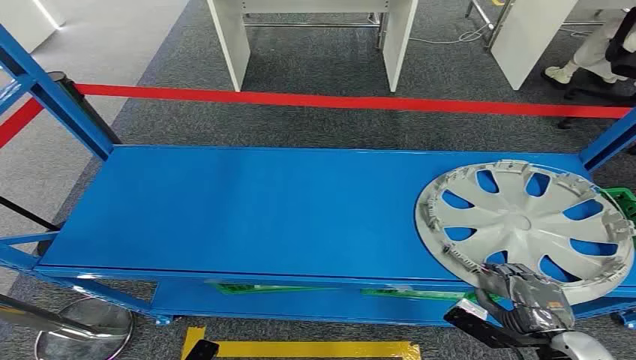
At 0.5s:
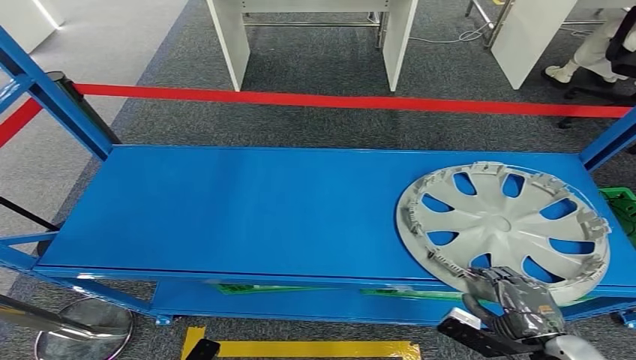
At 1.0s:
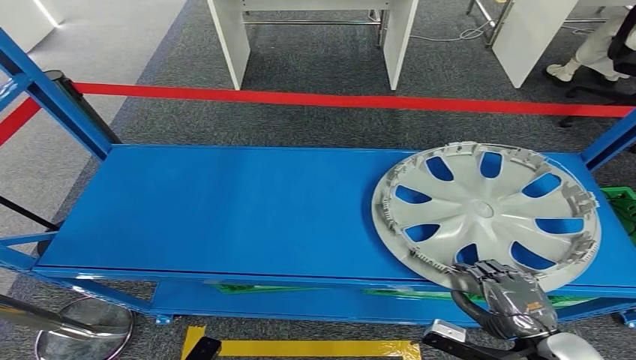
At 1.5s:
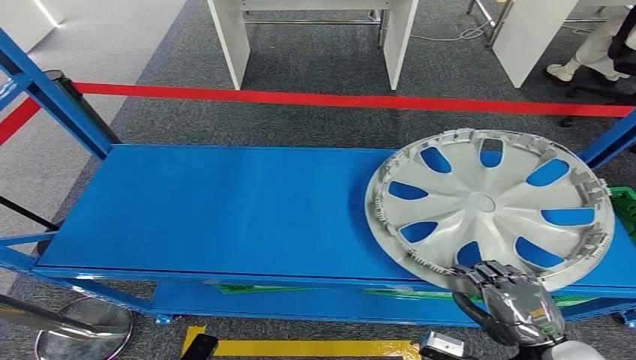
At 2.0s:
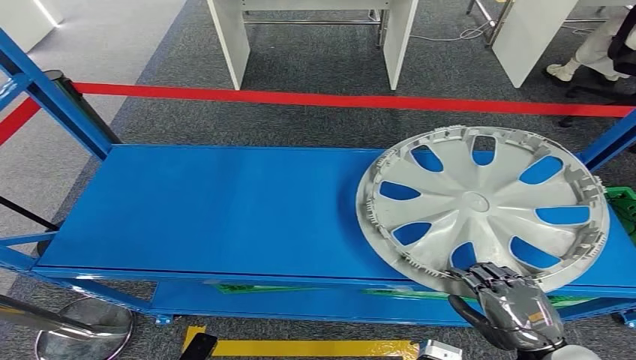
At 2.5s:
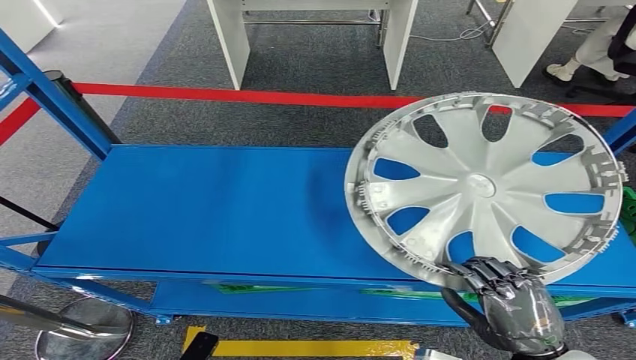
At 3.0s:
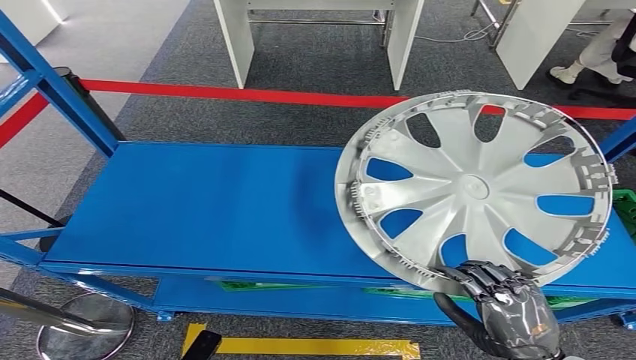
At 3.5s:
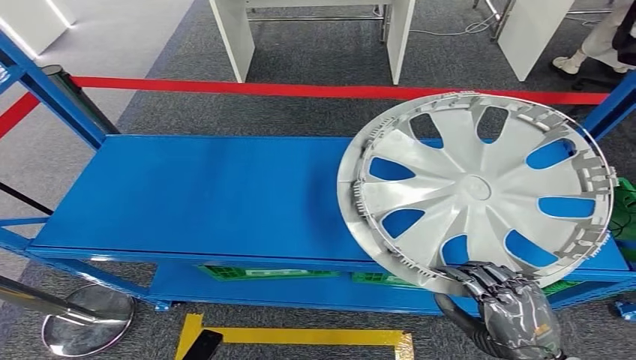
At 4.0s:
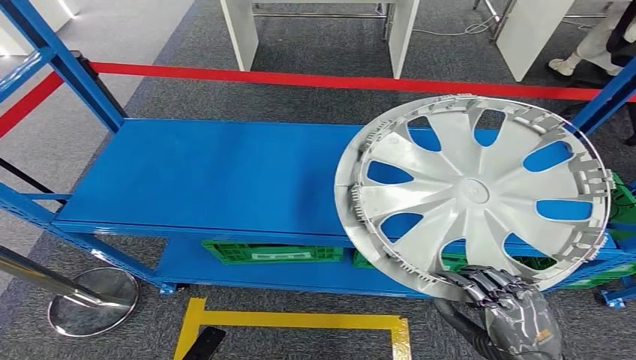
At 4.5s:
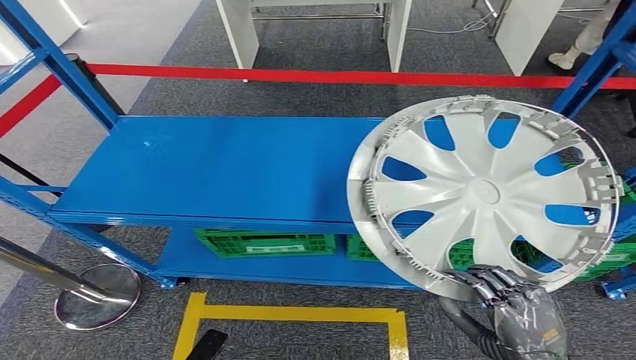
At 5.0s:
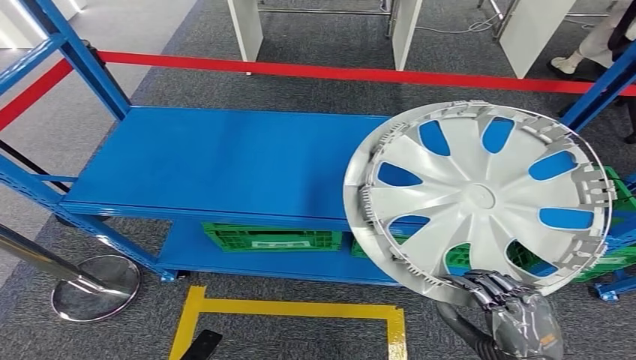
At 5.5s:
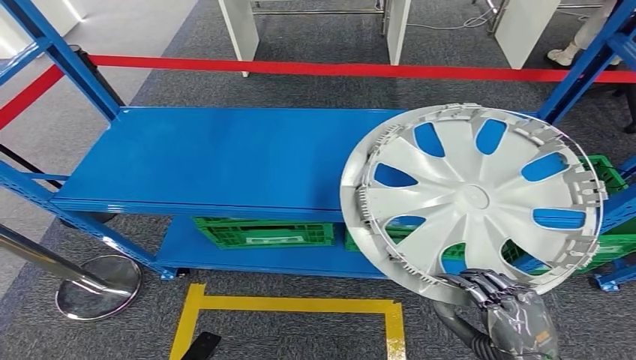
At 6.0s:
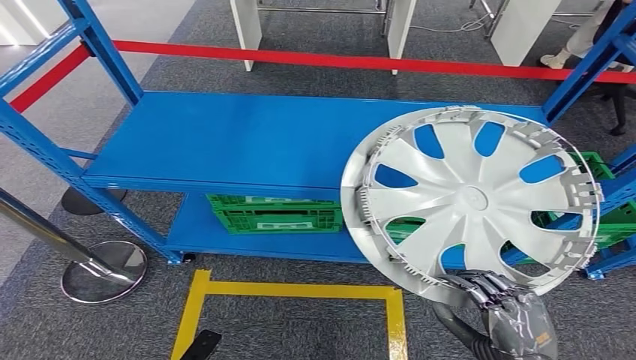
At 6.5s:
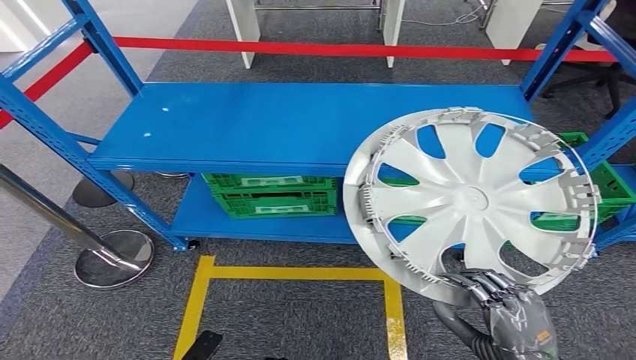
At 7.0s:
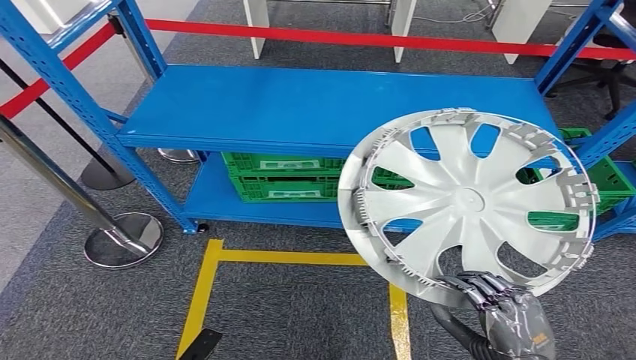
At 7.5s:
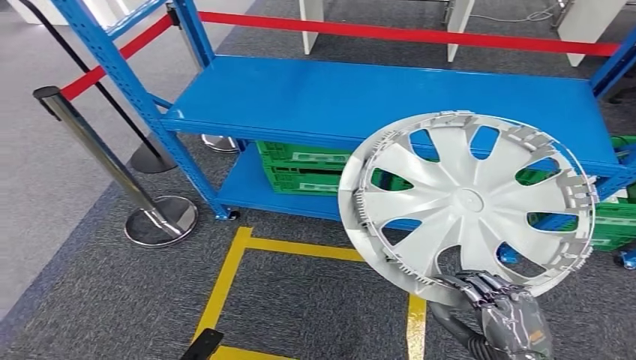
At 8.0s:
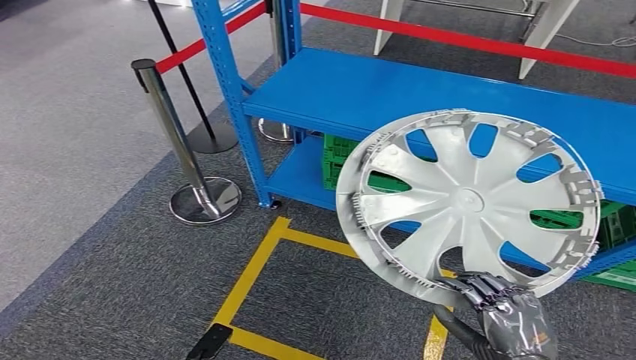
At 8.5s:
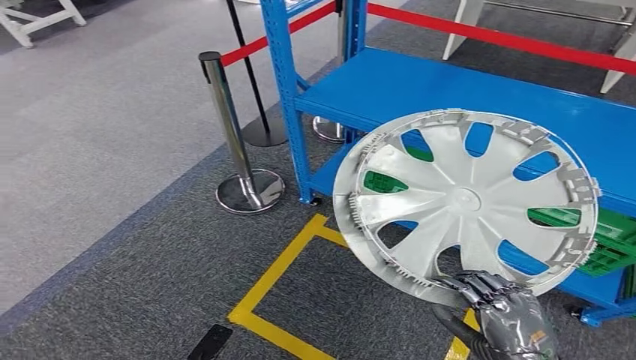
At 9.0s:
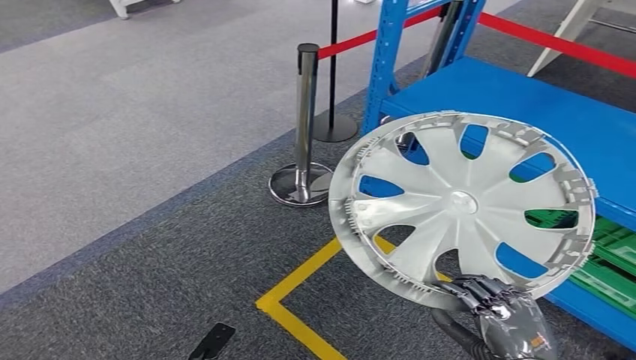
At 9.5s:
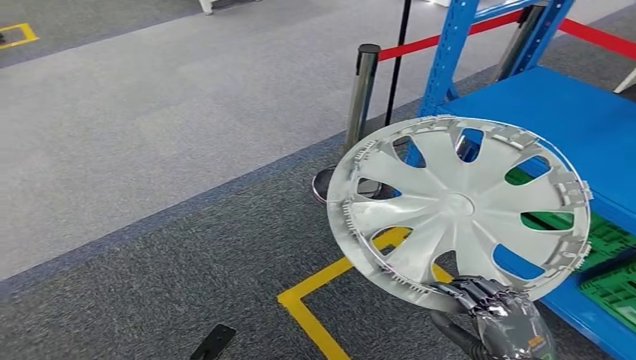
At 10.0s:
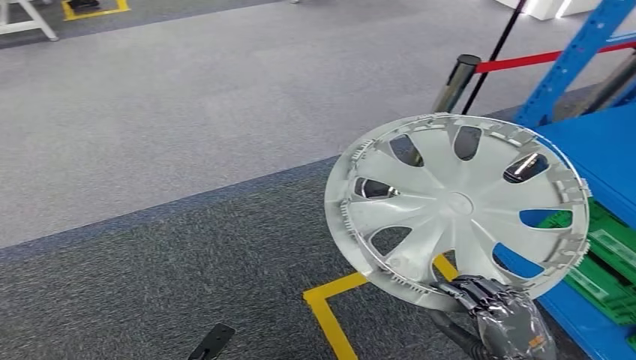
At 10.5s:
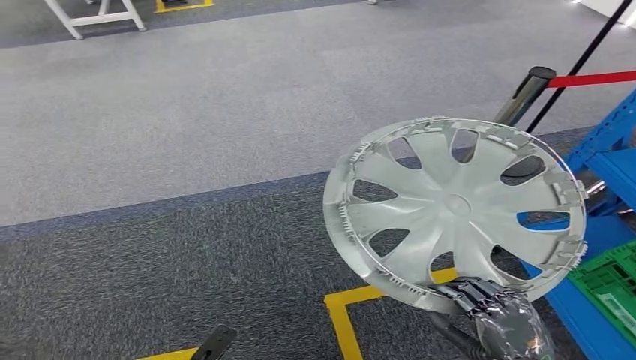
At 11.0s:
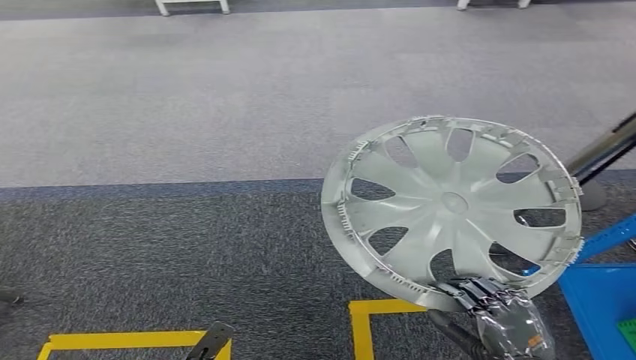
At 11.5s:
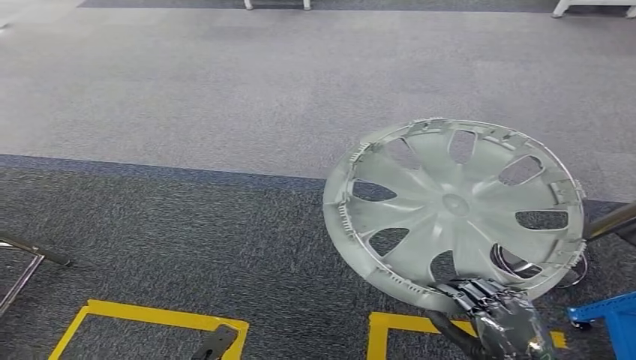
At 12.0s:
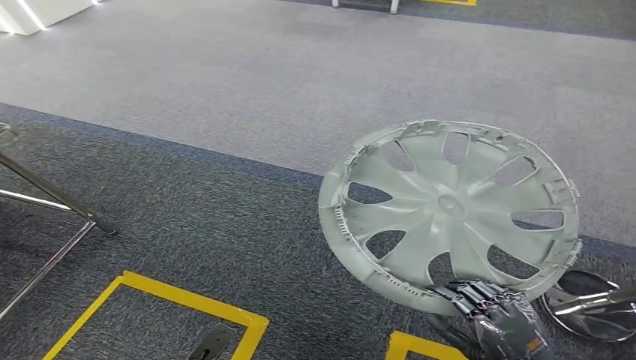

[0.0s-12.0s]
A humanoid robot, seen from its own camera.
Step, 0.0s to 2.5s: Pick up the small component from the shelf.

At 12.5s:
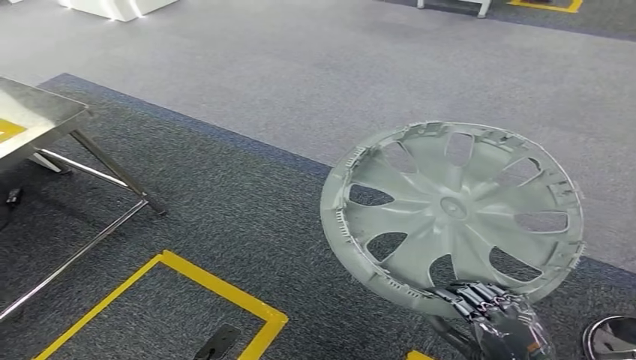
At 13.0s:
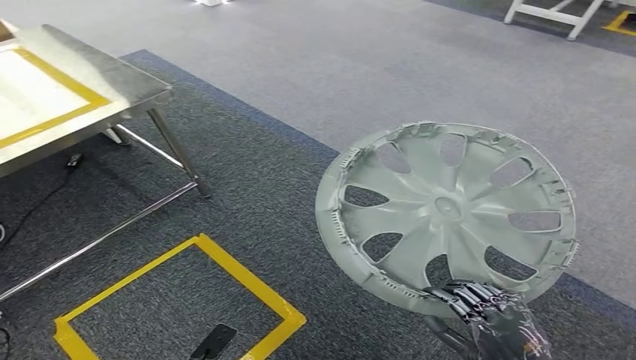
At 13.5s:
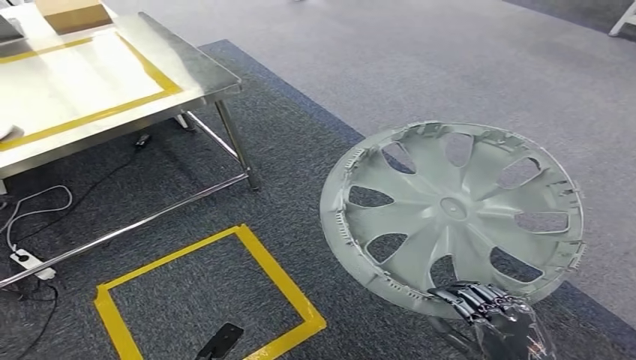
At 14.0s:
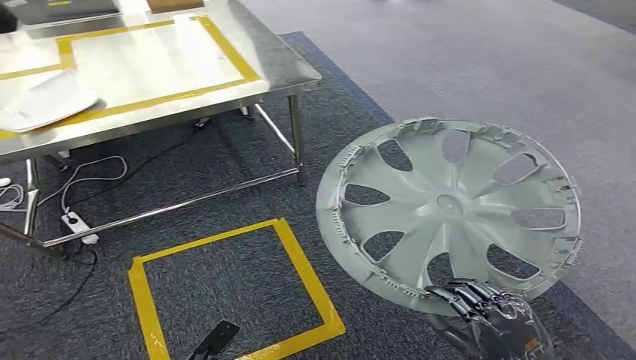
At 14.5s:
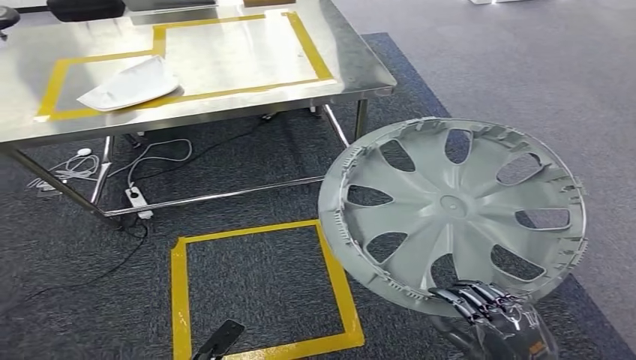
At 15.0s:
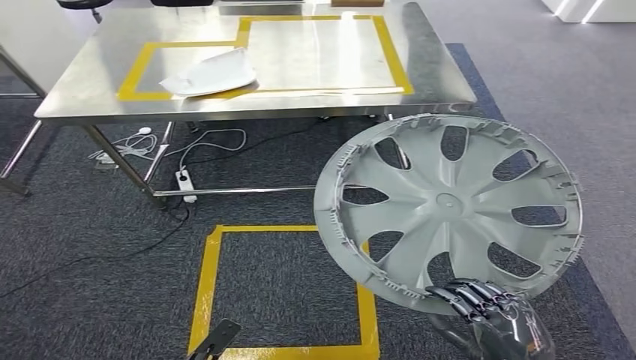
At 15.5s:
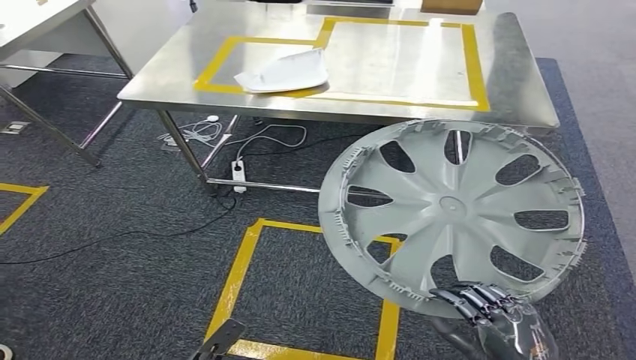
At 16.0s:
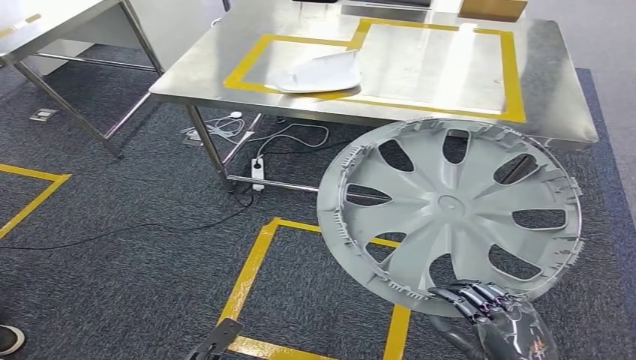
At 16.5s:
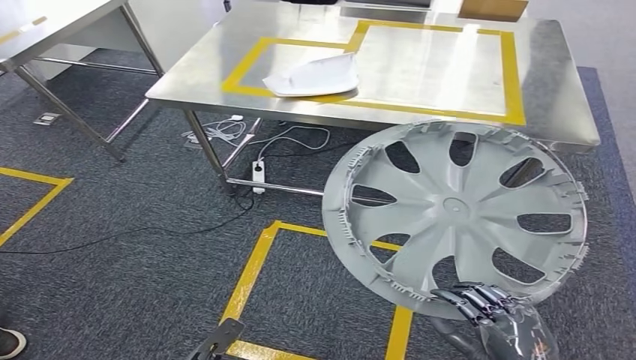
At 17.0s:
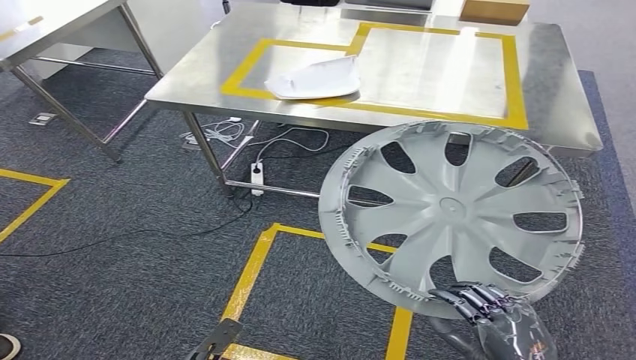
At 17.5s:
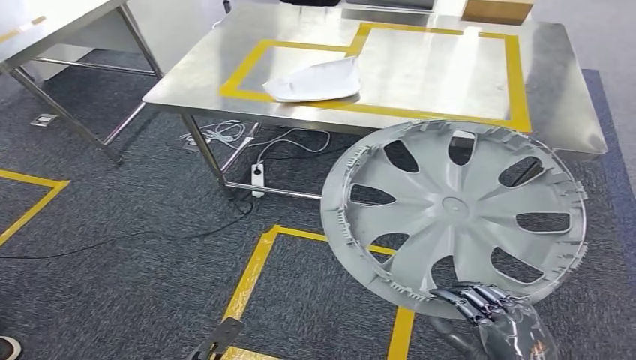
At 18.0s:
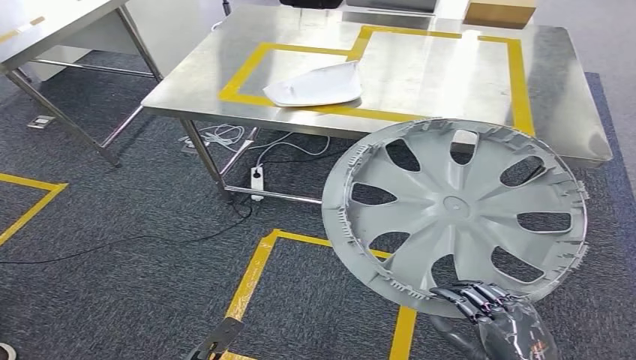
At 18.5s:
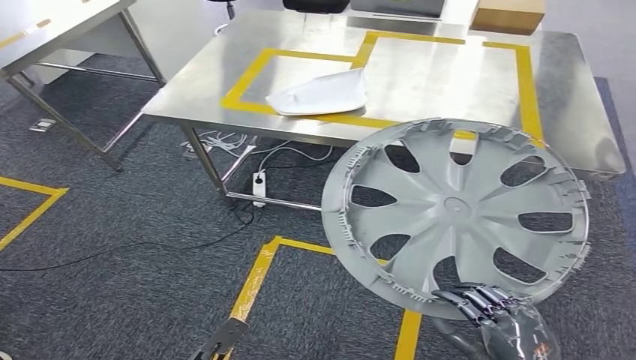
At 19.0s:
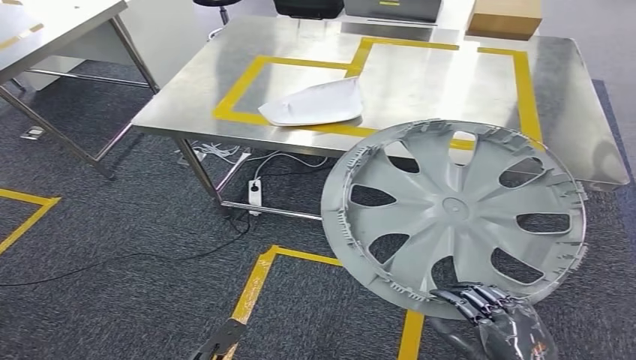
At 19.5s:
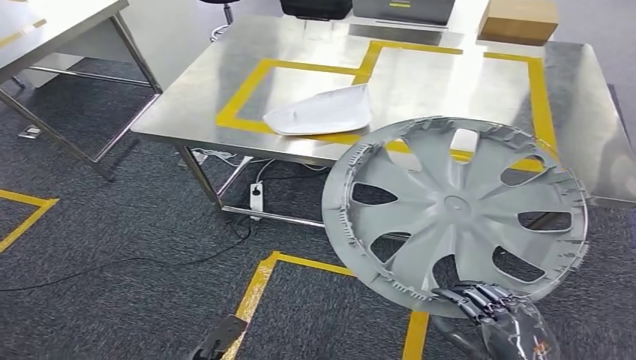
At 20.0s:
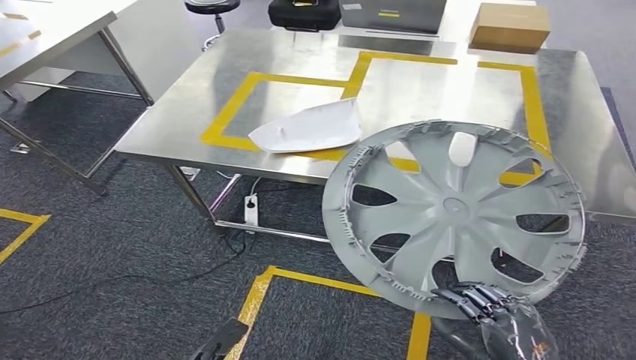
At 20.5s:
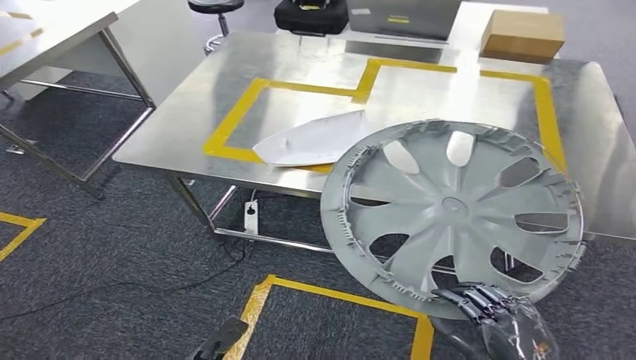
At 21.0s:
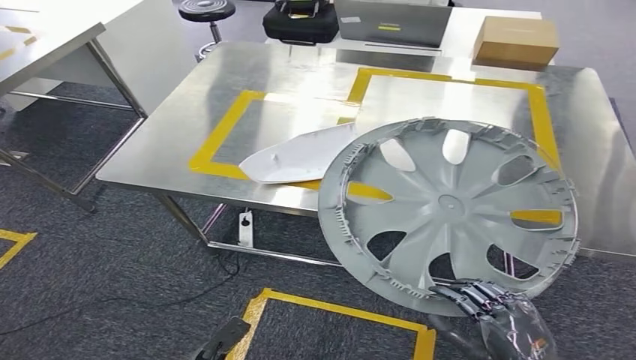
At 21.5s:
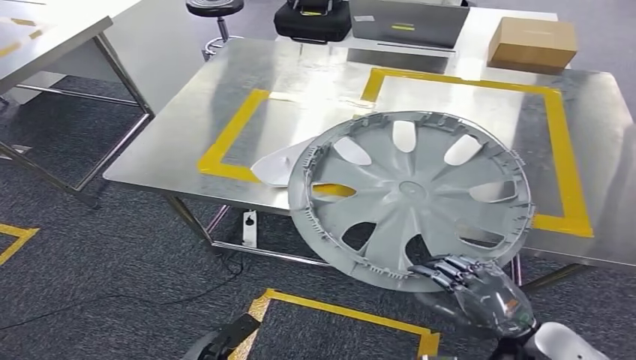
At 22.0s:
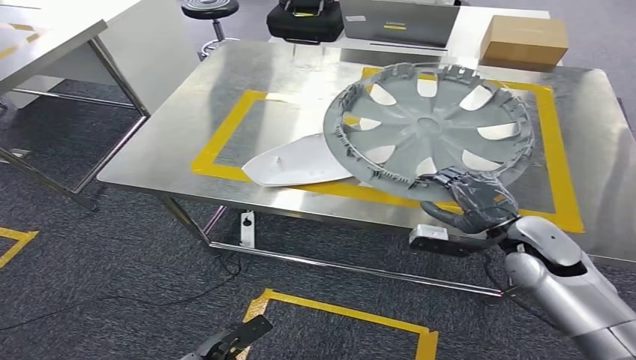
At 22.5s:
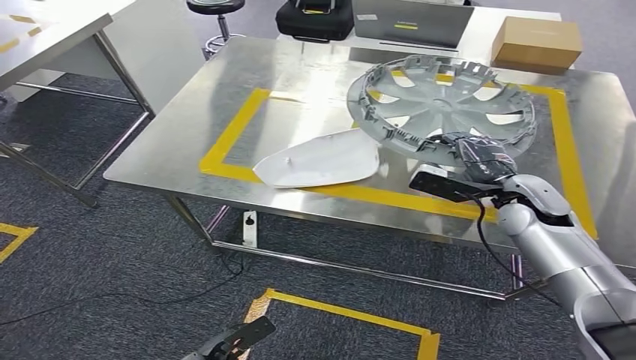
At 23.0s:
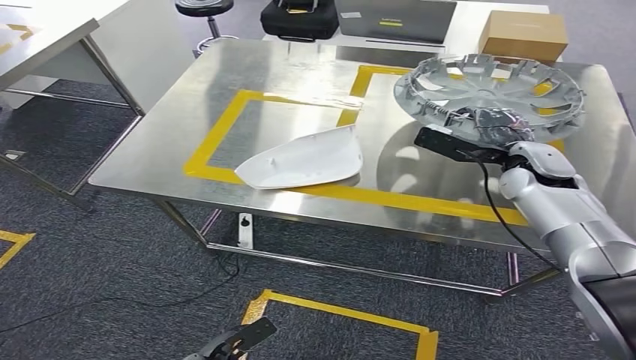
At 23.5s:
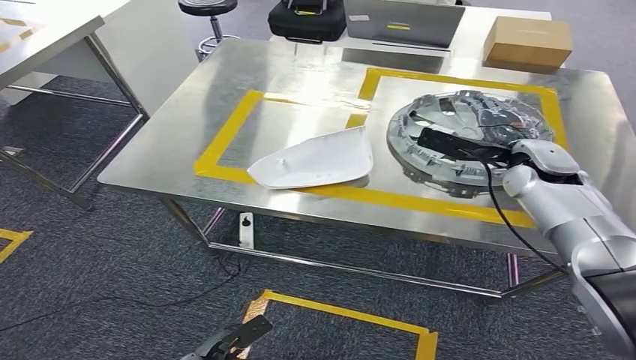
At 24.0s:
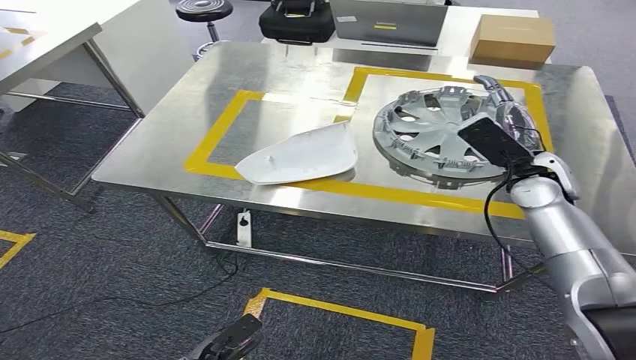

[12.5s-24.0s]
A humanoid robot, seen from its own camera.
Step, 12.5s to 19.5s: Bring the small component to the front of the workbench.
Step, 20.0s to 23.5s: Insert the small component into the corresponding slot on the workbench.
